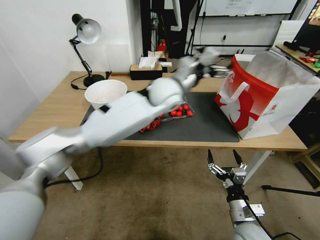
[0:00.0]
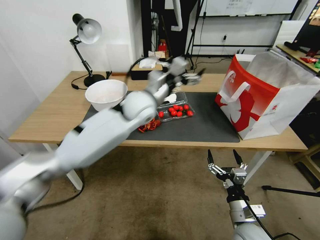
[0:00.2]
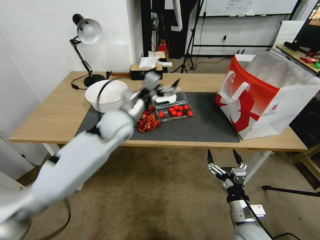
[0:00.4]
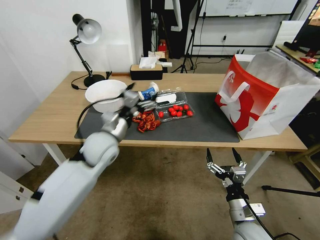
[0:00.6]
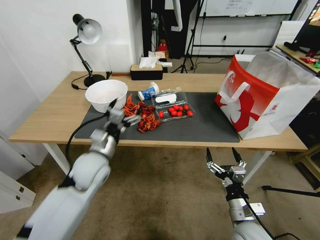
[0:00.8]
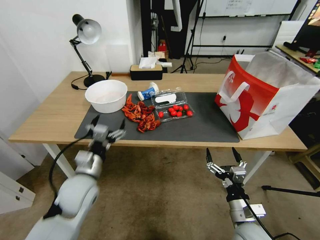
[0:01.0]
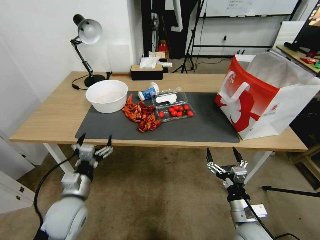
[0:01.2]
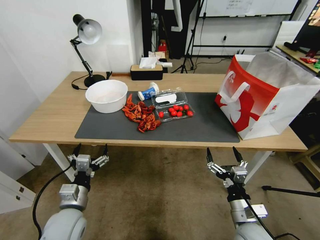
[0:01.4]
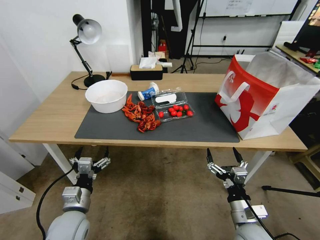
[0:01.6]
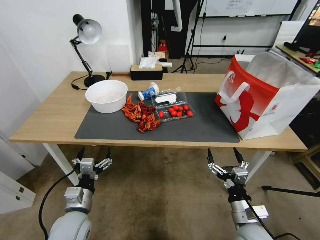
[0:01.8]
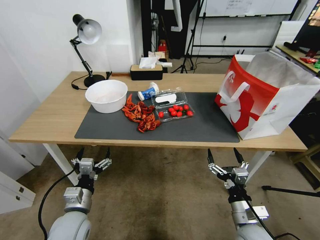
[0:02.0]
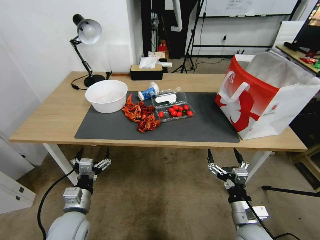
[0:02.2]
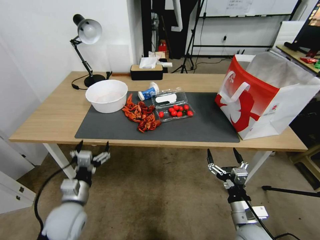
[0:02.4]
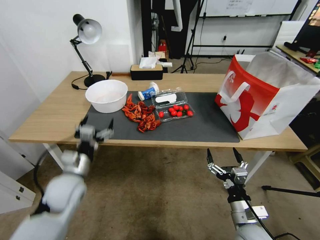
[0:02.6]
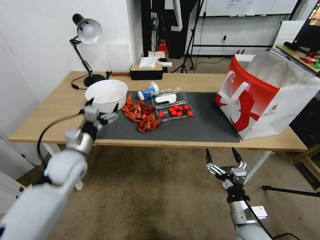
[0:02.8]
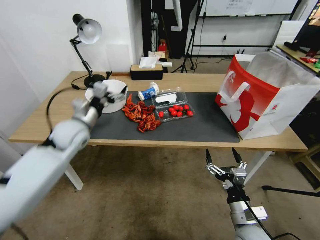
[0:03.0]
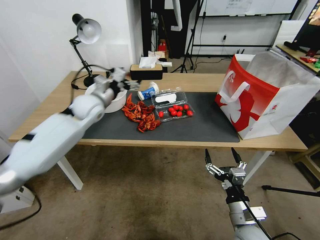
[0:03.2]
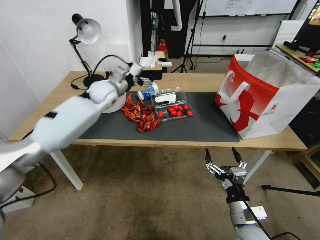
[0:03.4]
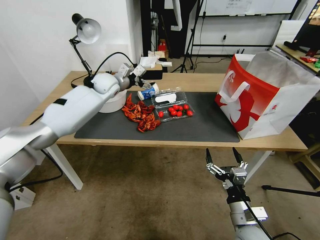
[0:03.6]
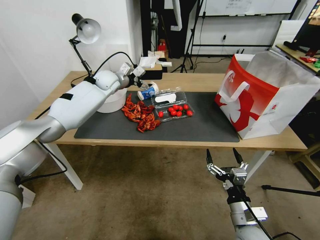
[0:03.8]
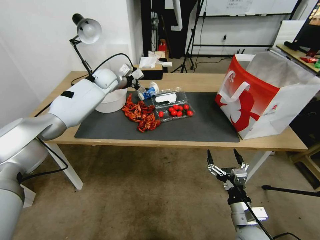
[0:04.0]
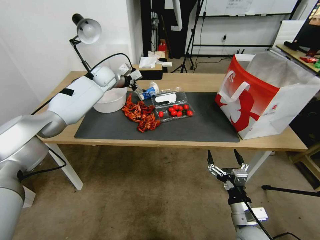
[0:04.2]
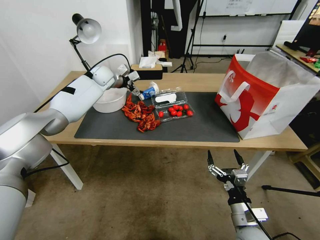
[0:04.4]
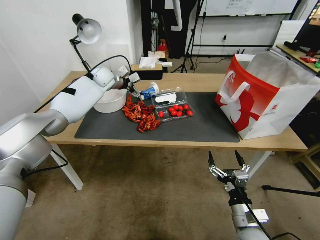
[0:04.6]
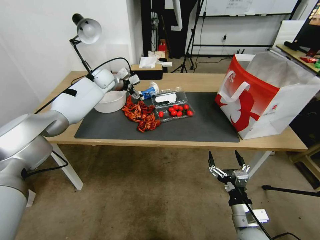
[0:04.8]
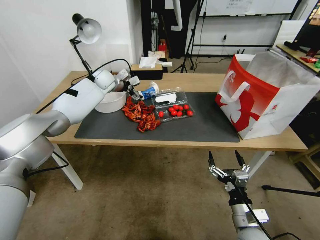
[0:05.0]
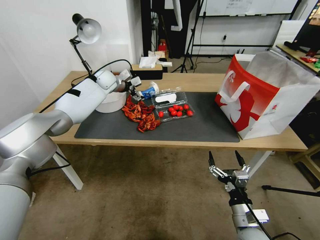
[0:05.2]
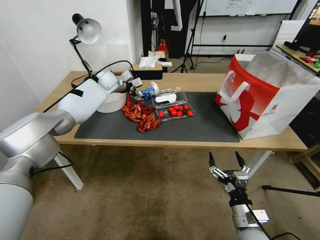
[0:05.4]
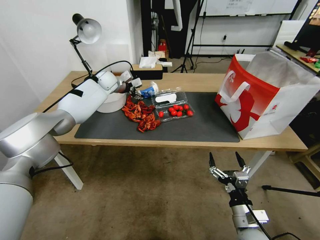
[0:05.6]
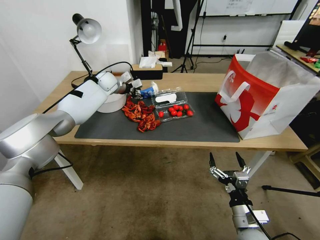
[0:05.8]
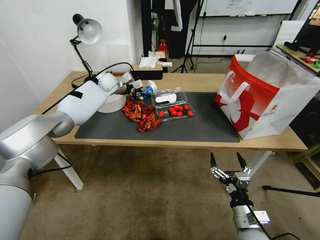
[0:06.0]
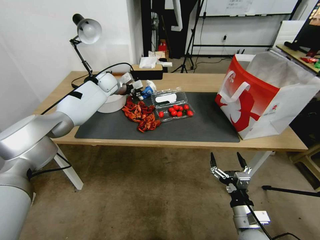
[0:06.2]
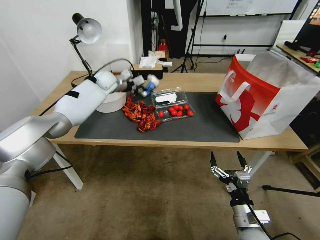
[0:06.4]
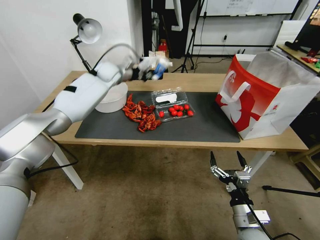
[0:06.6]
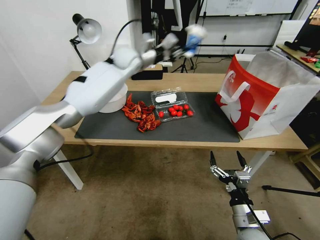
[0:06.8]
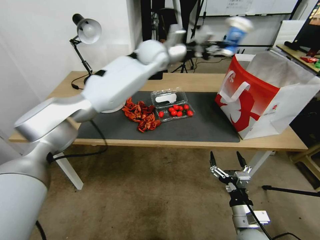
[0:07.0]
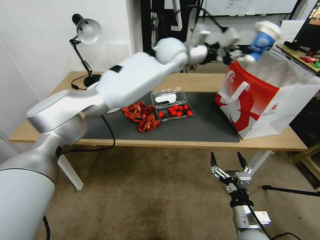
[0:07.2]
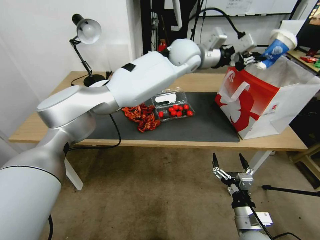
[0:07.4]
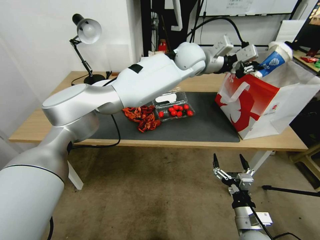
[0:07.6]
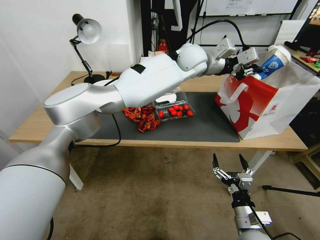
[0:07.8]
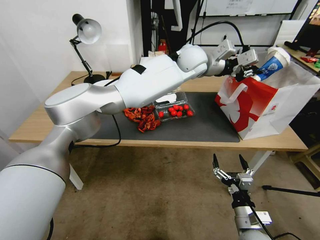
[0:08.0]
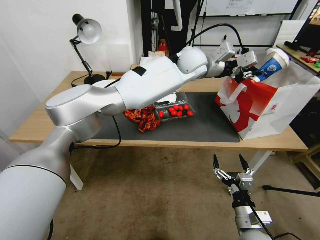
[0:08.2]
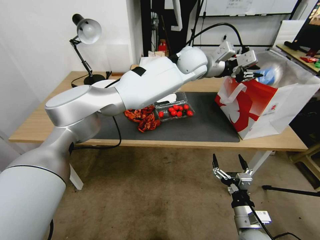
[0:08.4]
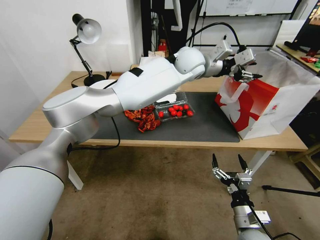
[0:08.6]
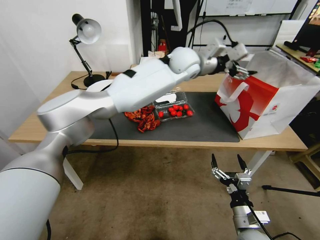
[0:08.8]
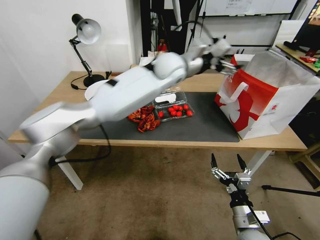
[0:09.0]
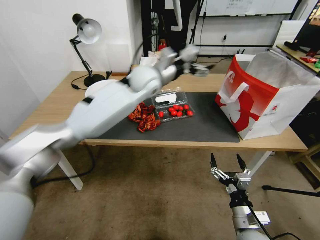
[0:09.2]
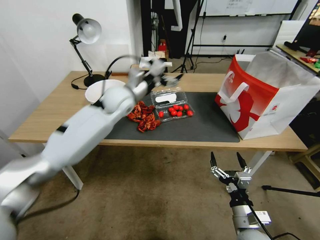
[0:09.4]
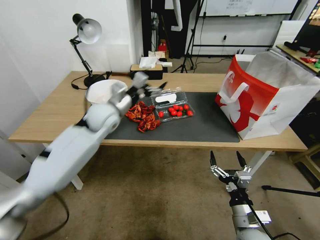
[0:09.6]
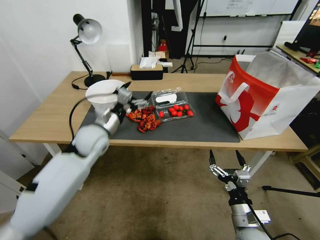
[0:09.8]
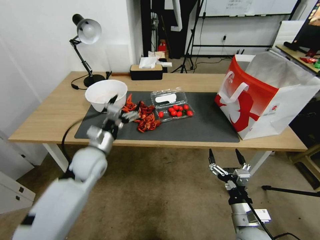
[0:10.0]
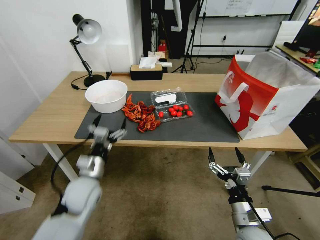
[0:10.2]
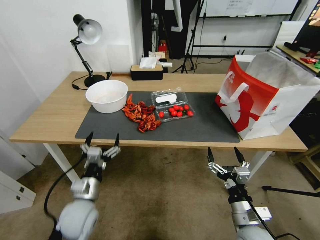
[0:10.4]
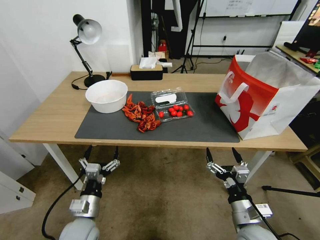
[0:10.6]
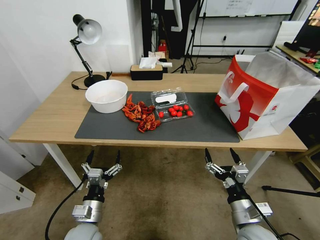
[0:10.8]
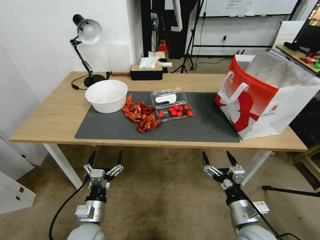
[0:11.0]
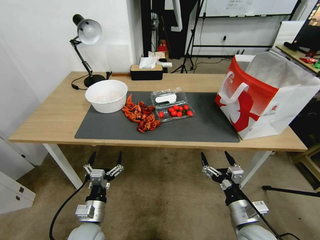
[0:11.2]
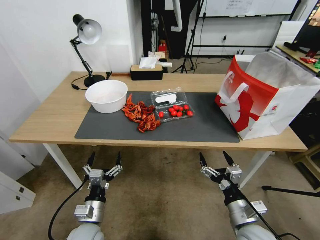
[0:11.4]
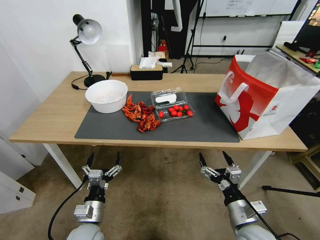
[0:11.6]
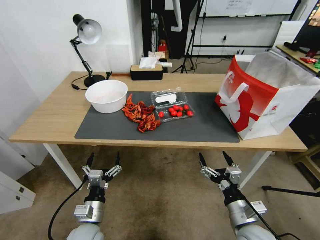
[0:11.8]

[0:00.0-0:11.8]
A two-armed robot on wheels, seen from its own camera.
0:00.0 to 0:01.4: The left gripper goes roughly 50 cm to the left, backward and downward.
0:01.4 to 0:03.0: The left gripper shifts roughly 30 cm forward and upward.
0:03.0 to 0:04.4: The left gripper travels forward by some 25 cm.
0:04.4 to 0:06.0: The left gripper closes its fingers.
0:06.0 to 0:07.4: The left gripper heads to the right and upward, covering roughly 35 cm.
0:07.4 to 0:08.8: The left gripper opens.
0:08.8 to 0:10.4: The left gripper is displaced backward, downward and to the left by about 60 cm.
0:10.4 to 0:11.8: The left gripper travels downward and backward by about 5 cm.
